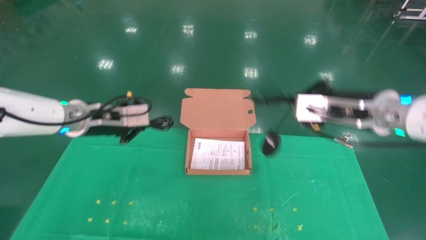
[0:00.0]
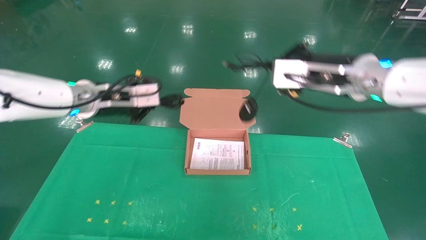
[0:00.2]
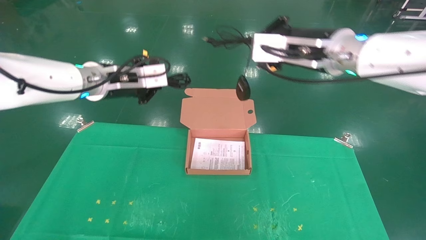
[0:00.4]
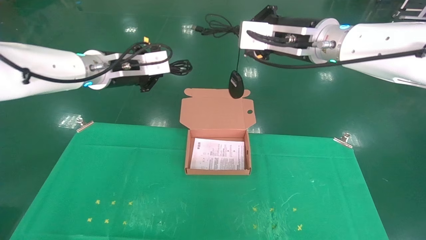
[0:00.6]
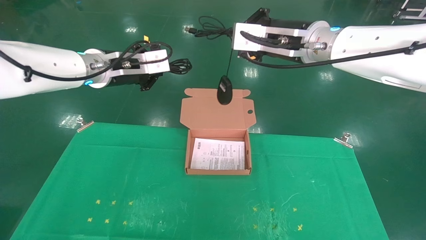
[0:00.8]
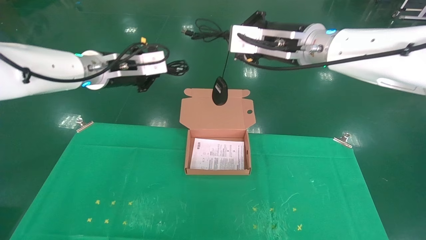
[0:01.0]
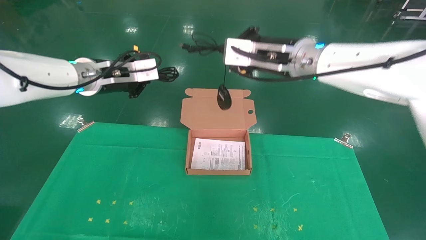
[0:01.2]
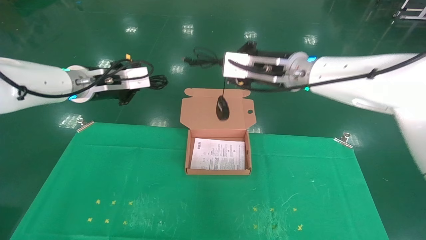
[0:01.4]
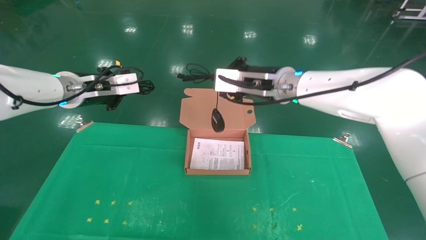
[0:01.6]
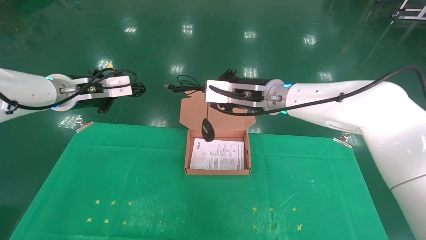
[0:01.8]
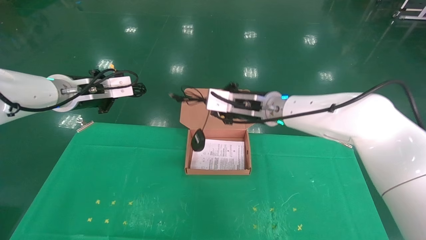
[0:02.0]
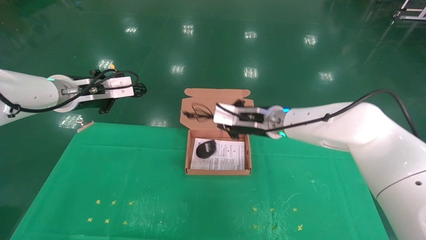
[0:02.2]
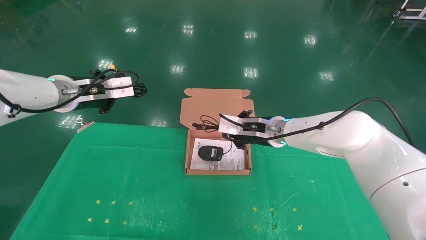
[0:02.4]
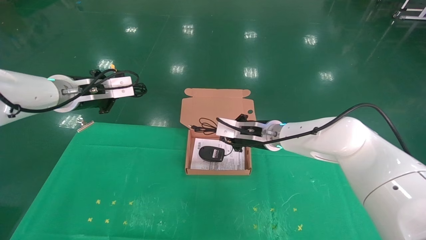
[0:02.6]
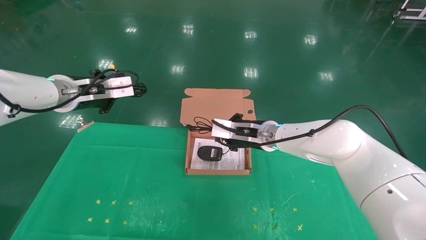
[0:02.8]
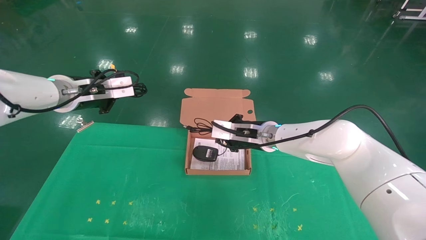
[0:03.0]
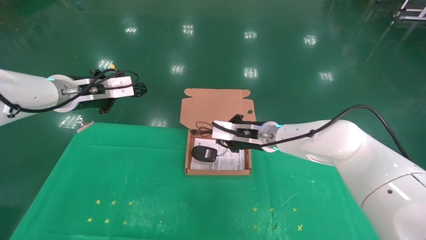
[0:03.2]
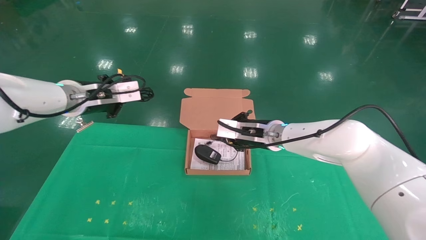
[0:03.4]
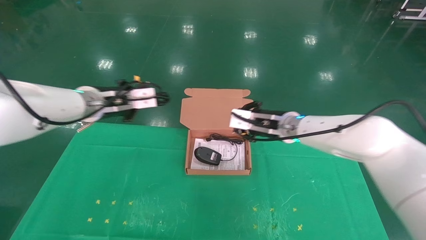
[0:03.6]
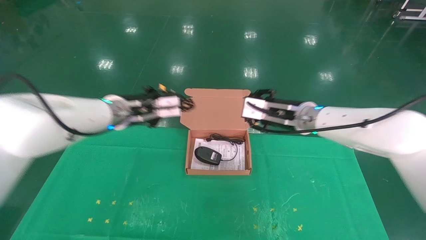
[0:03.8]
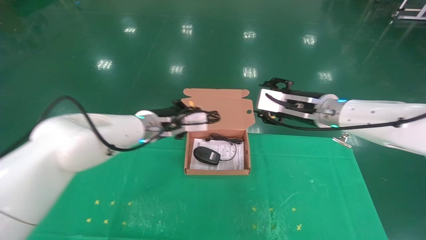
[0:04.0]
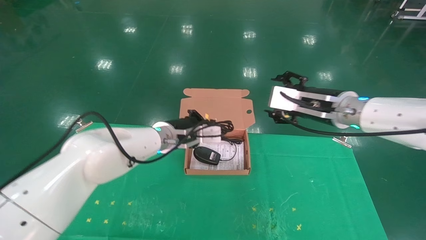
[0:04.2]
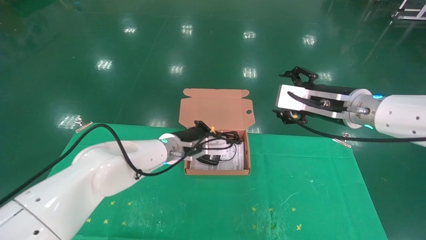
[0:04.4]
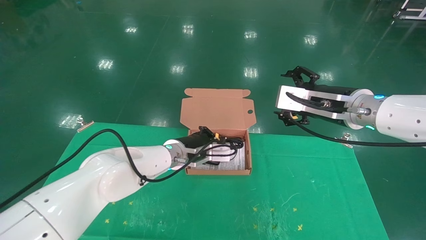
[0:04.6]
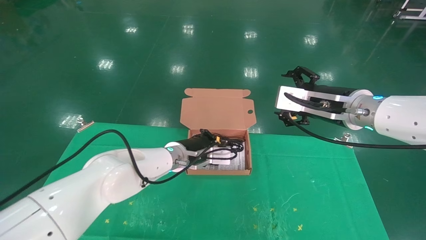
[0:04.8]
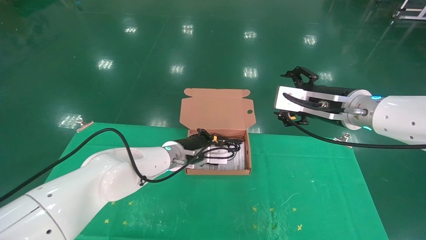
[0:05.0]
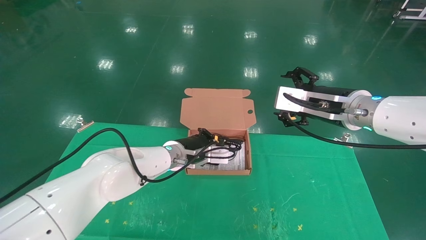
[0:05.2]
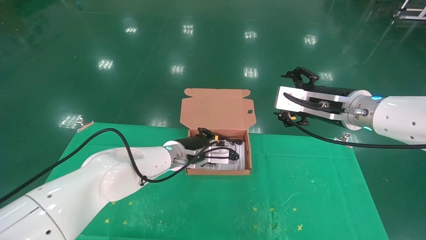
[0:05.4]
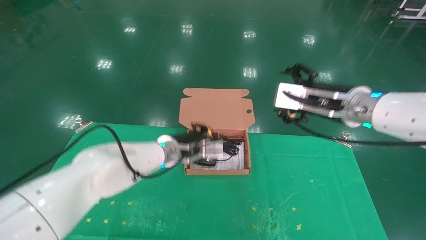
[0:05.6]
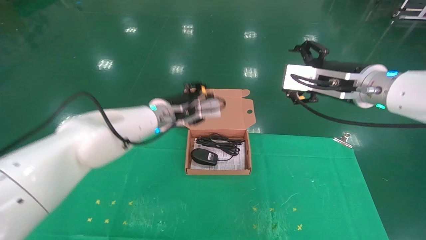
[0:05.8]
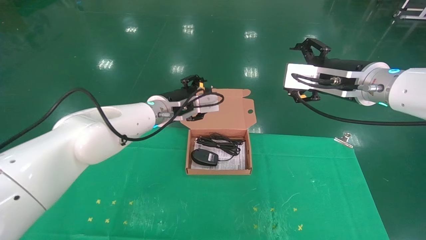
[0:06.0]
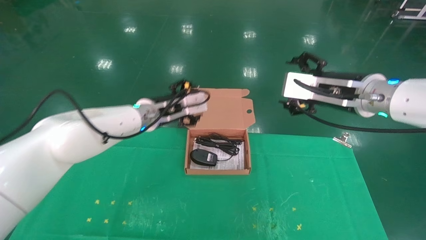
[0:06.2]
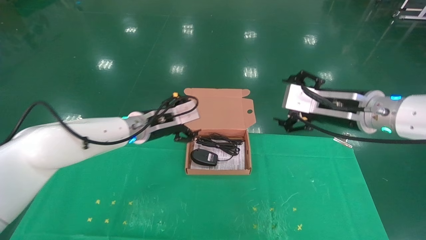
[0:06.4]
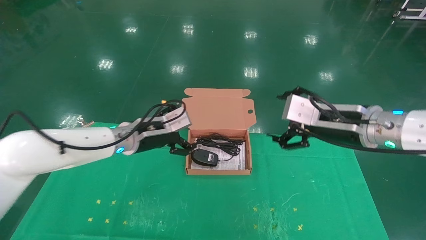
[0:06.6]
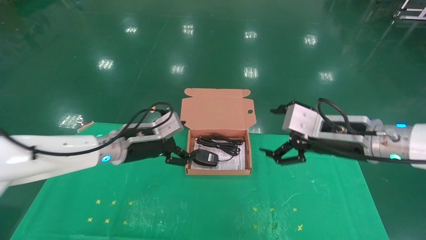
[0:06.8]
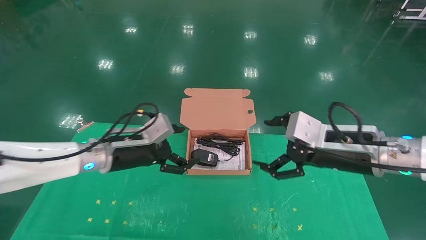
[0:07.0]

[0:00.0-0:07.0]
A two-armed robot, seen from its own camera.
Task of the whole recording: grasp data cable left put into box grasp mouse right put into box.
Step, 0:00.0 to 0:05.6: Place the mouse and power cord into the box.
0:00.0 to 0:01.4: The left gripper goes about 5 cm upward. The right gripper heads to the left, forward and upward, covering approximately 15 cm.
0:01.4 to 0:02.8: The right gripper travels downward by approximately 15 cm.
0:02.8 to 0:04.2: The left gripper goes about 20 cm to the right and downward, while the right gripper moves to the right, upward and backward, about 15 cm, and opens.
0:04.2 to 0:05.6: The grippers stay close to where they were, moving slightly.
0:05.6 to 0:07.0: The left gripper moves to the left and backward, roughly 15 cm, and opens. Meanwhile the right gripper is displaced downward and backward by approximately 10 cm.
